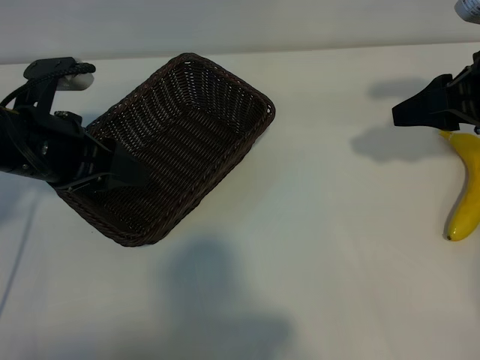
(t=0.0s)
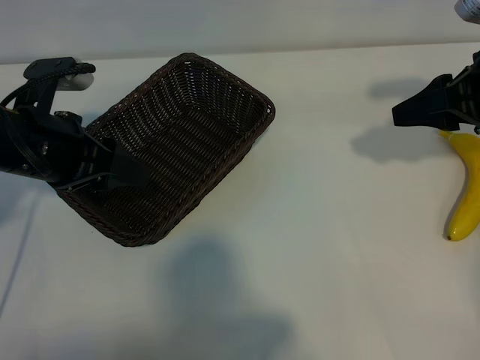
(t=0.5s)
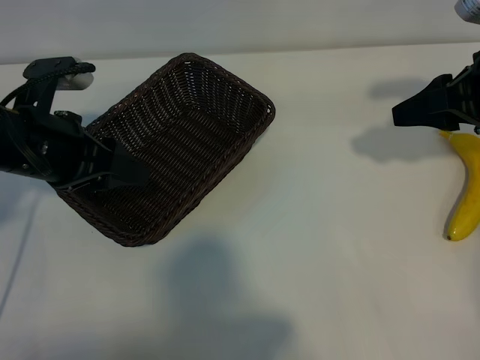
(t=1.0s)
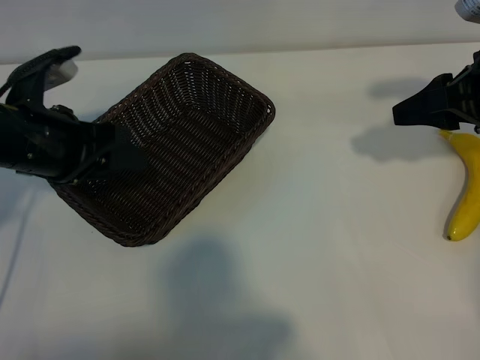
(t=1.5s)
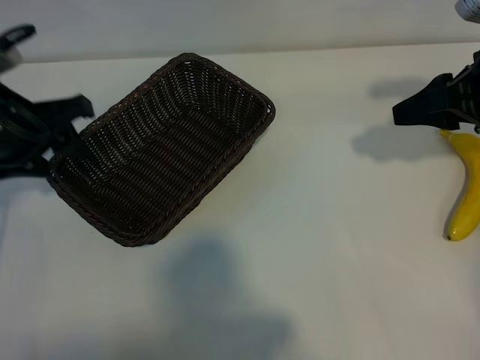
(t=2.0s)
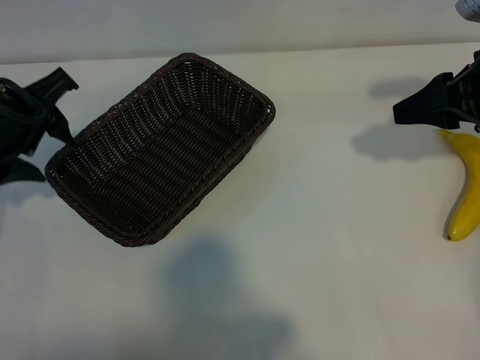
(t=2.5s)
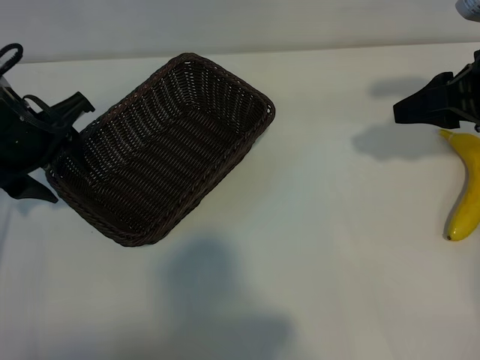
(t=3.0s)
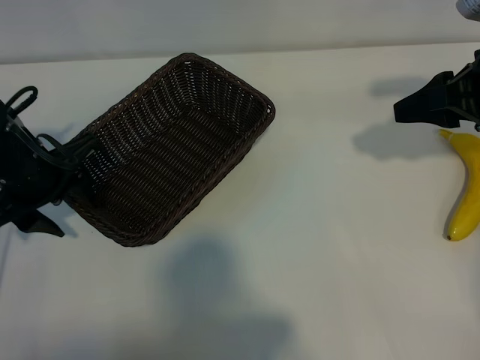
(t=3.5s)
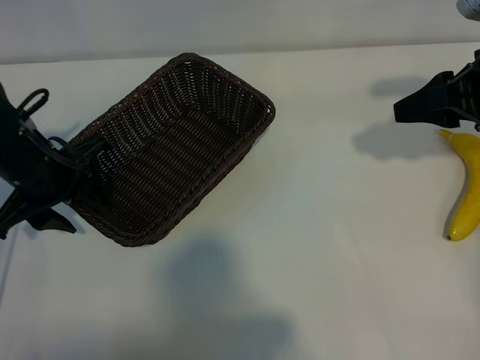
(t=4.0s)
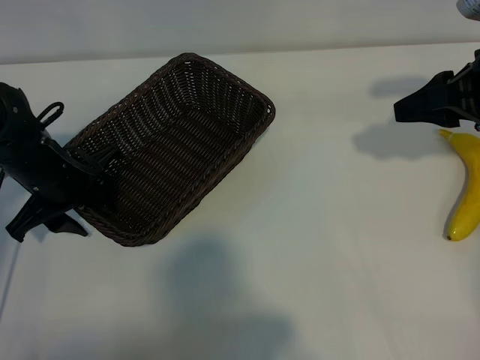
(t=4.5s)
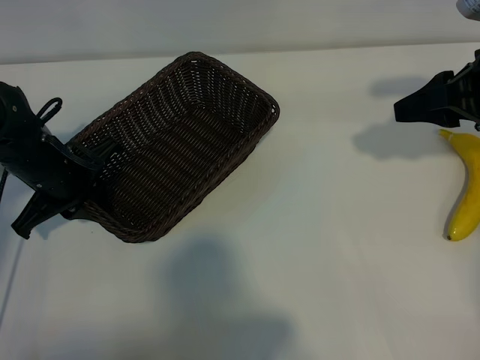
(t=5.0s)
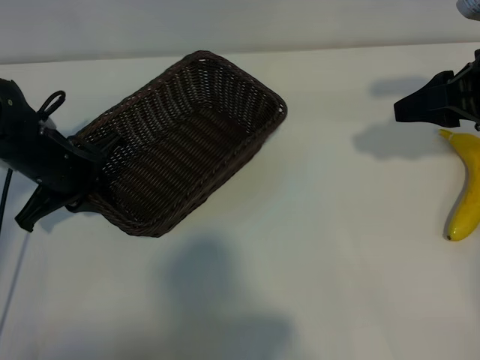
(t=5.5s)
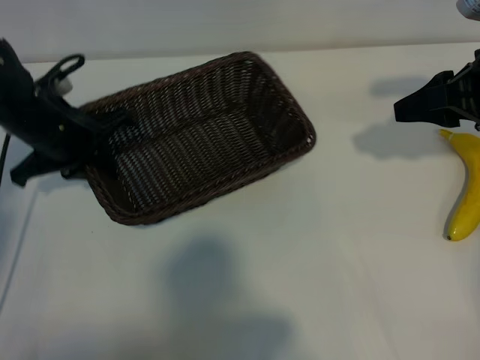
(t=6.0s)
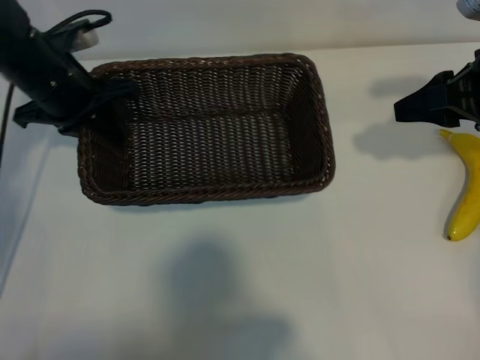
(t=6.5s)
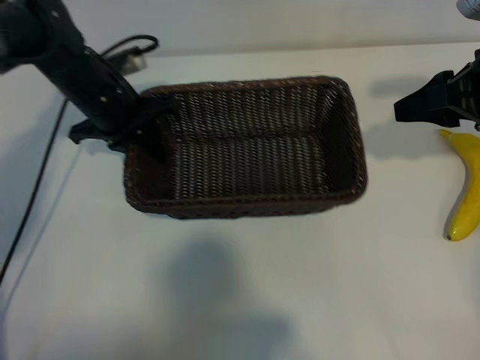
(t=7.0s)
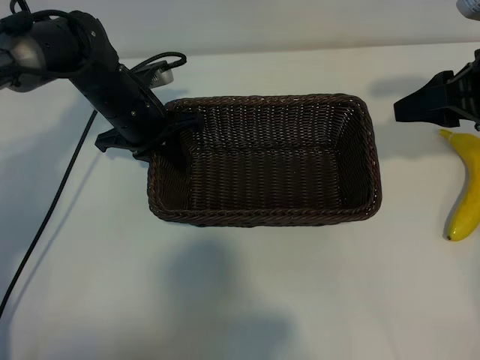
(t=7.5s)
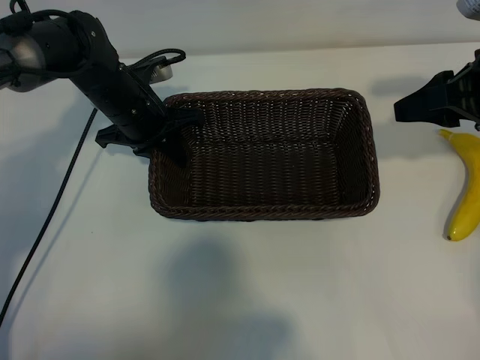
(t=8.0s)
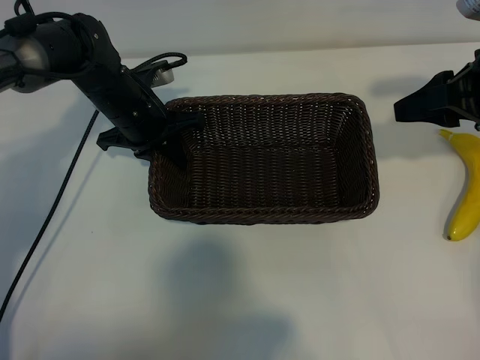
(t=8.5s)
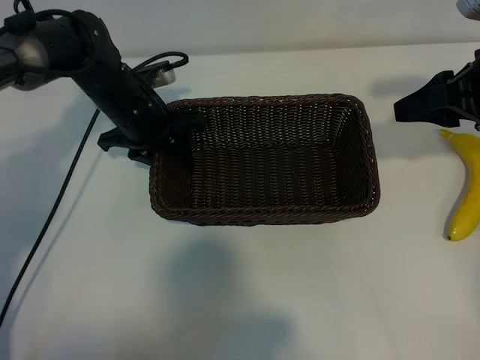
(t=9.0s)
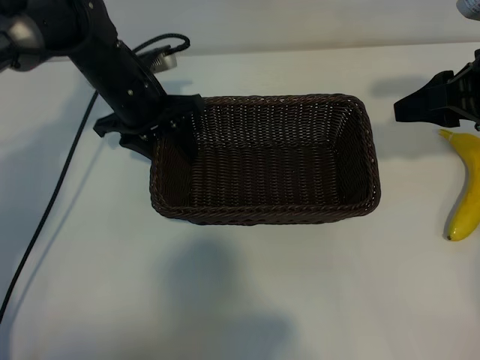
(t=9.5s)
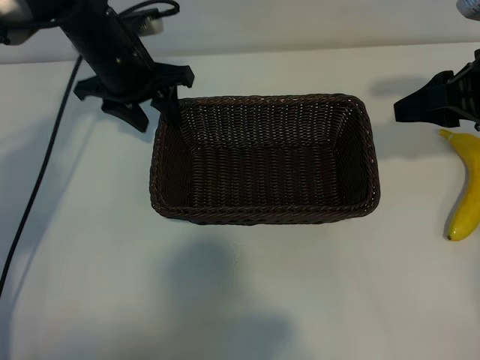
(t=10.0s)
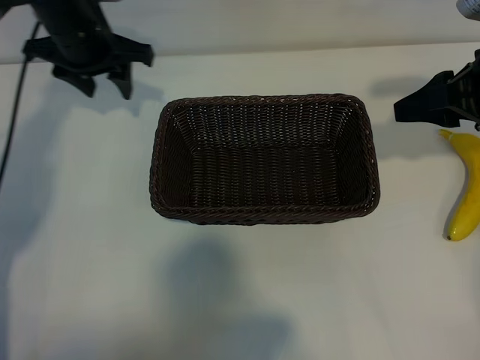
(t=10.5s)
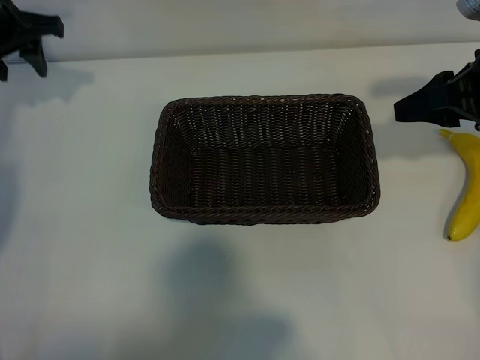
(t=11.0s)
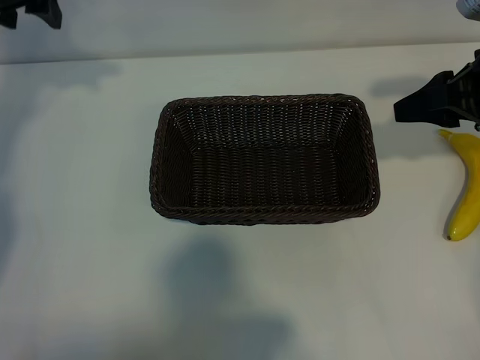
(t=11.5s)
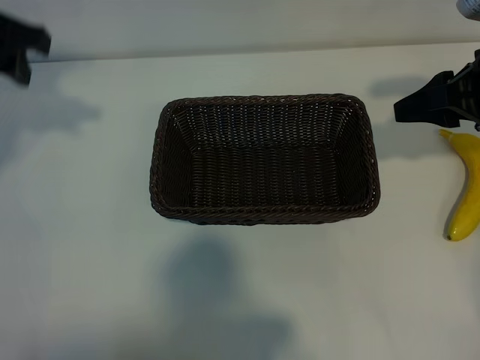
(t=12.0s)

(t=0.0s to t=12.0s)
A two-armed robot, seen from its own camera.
Task of the whole recording: pick up the banana and put it into the basket.
Step, t=1.0s - t=5.0s: Grasp the basket with the left gripper.
Step, t=5.5s - t=9.5s: Place the basket in the center of the table with the left gripper.

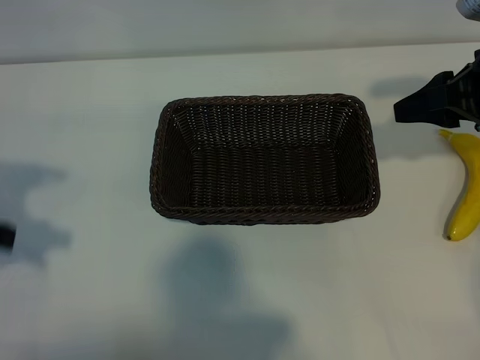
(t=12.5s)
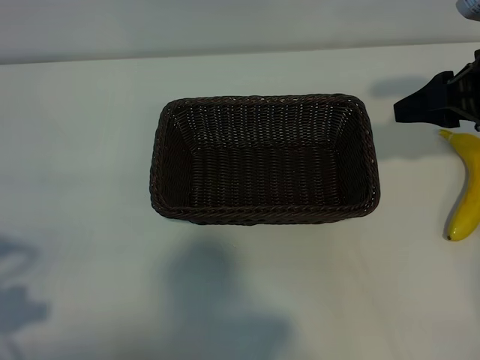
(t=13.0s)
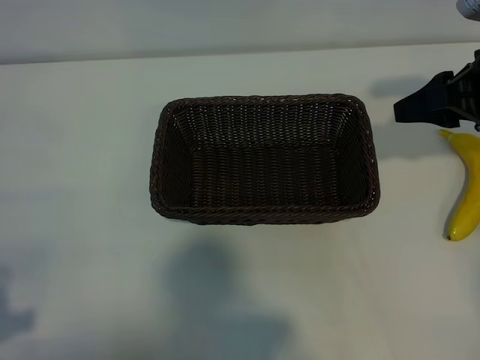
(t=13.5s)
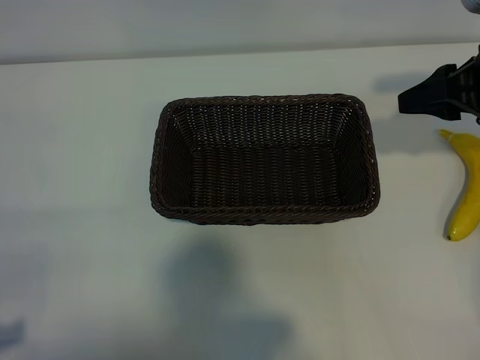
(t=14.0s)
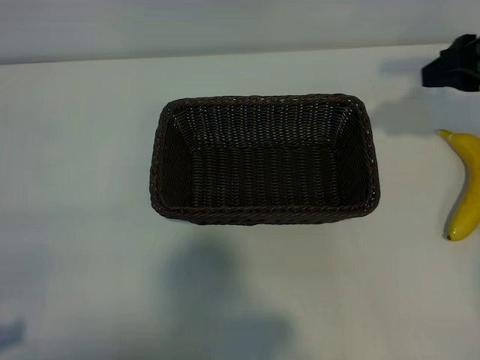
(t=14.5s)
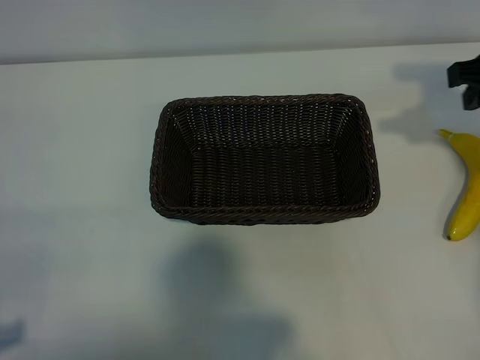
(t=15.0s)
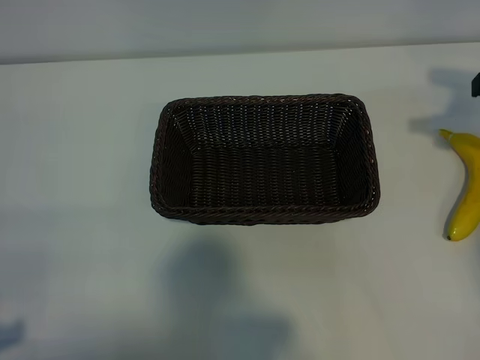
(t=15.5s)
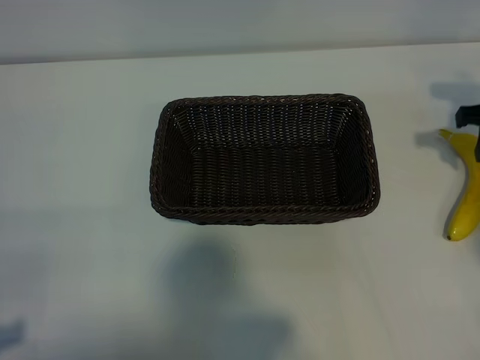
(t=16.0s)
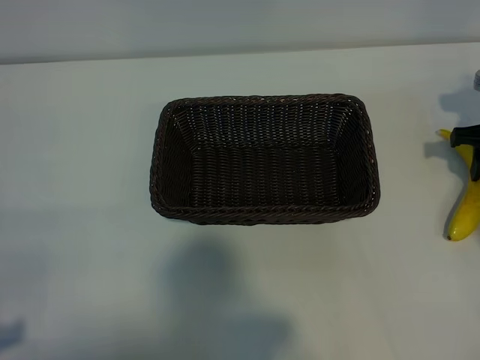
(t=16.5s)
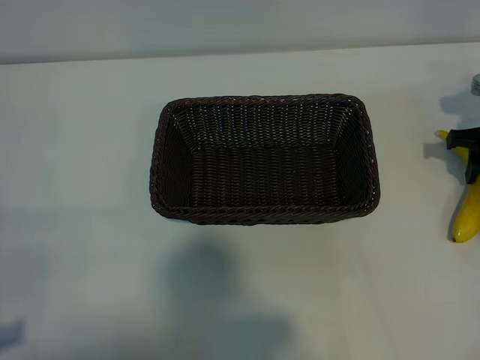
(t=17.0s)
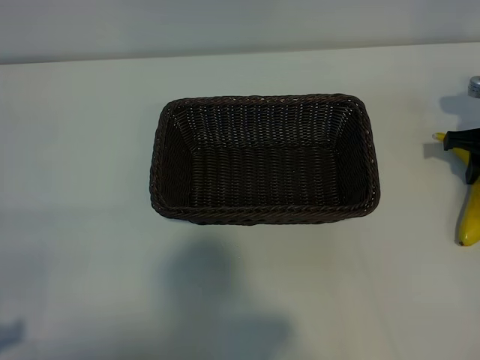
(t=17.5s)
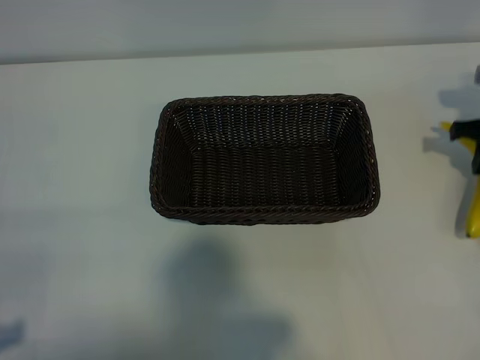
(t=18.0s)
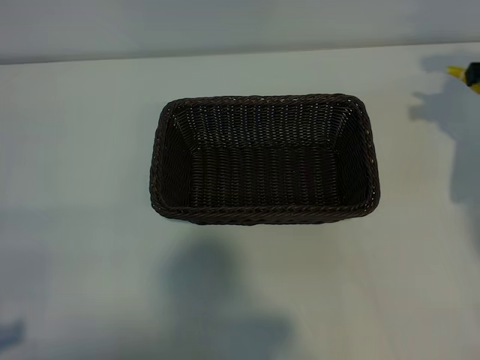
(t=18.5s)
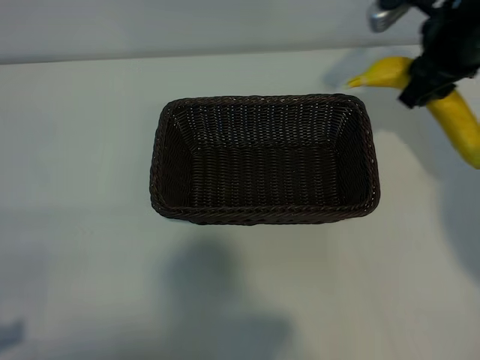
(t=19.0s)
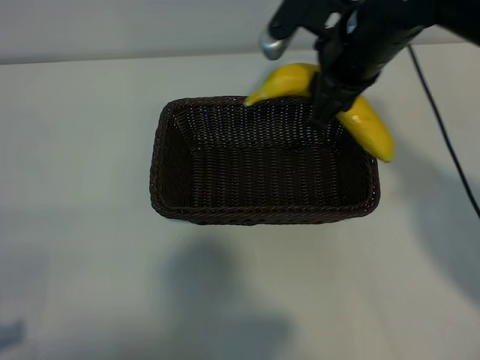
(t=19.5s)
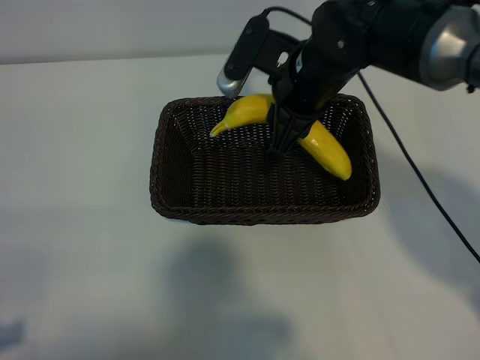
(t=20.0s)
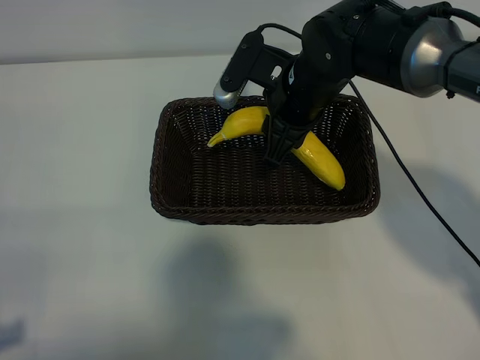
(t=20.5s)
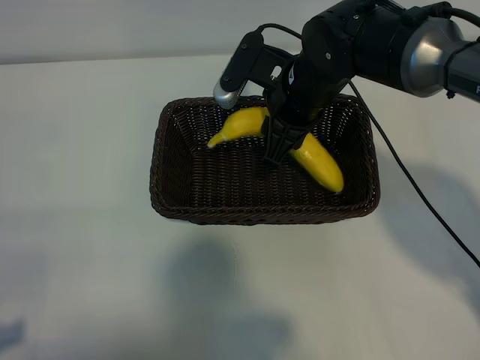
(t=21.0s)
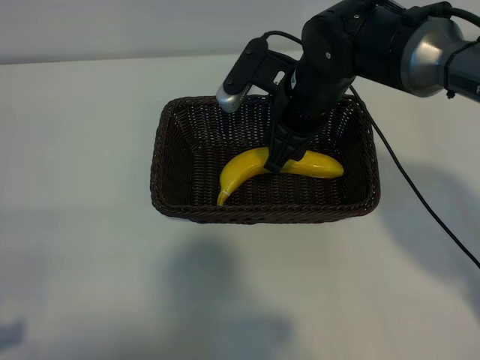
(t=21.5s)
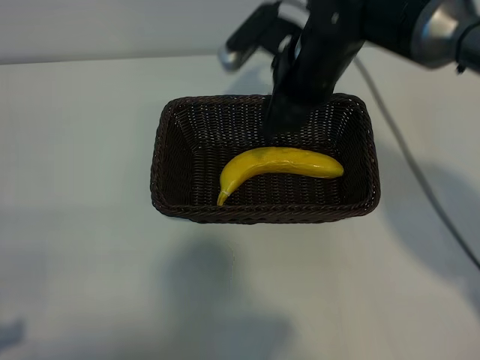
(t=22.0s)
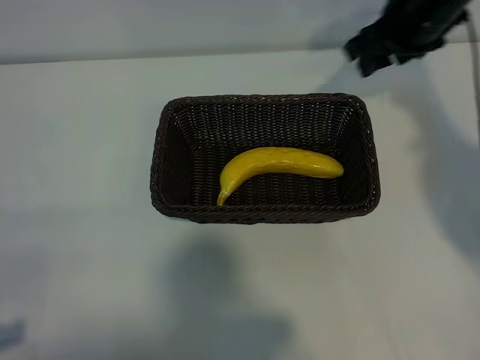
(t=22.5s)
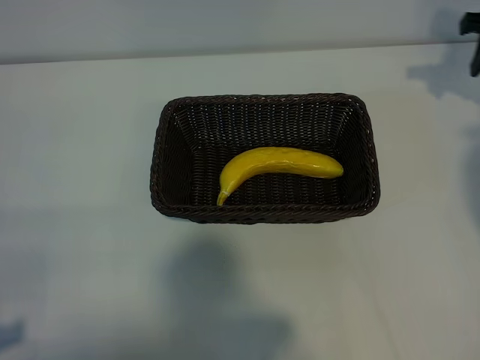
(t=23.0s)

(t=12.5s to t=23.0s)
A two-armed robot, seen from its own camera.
Task of the whole recording: pick up the banana and put it into the basket.
Step, t=12.5s - t=17.5s: Grasp the banana with right gripper.
Step, t=18.0s - t=22.0s: Place the banana in the basket with right gripper.
